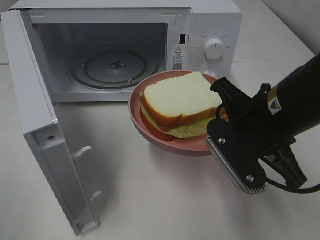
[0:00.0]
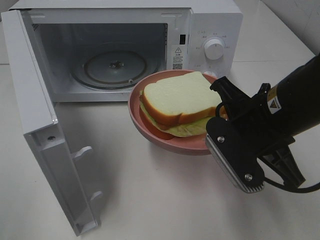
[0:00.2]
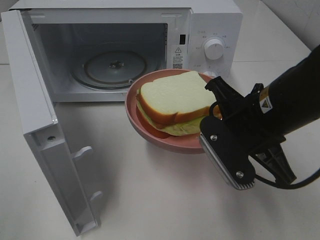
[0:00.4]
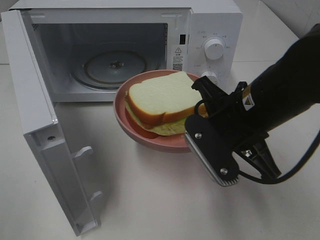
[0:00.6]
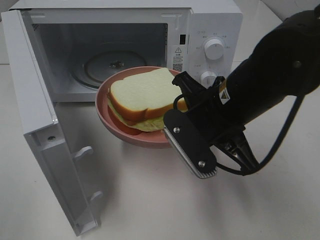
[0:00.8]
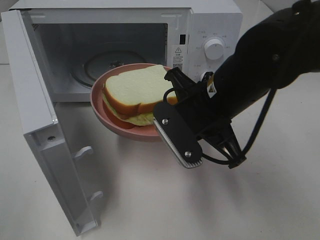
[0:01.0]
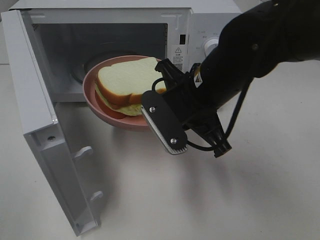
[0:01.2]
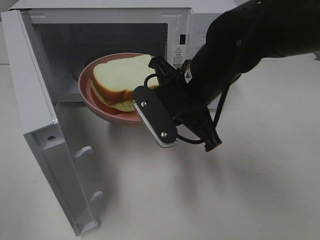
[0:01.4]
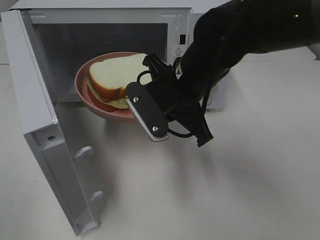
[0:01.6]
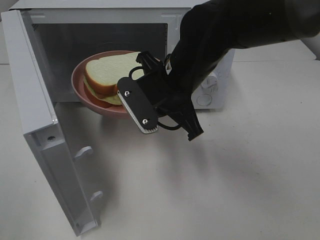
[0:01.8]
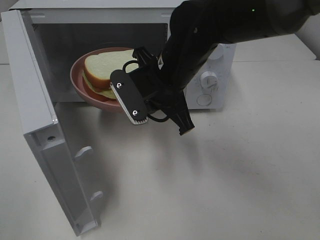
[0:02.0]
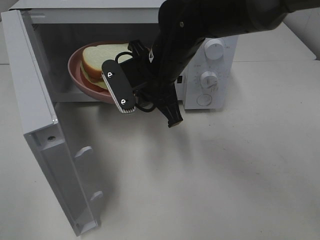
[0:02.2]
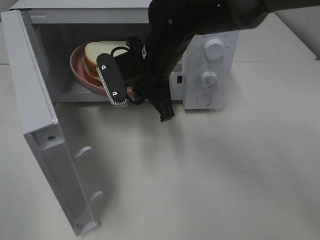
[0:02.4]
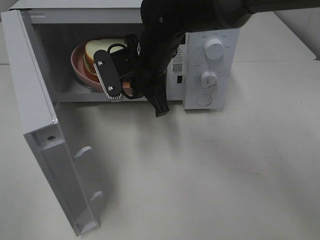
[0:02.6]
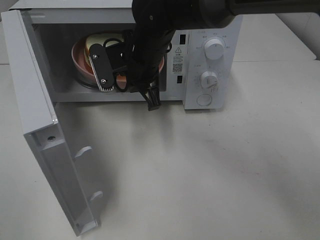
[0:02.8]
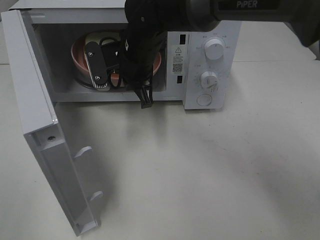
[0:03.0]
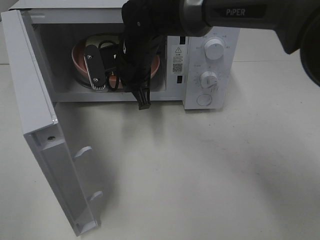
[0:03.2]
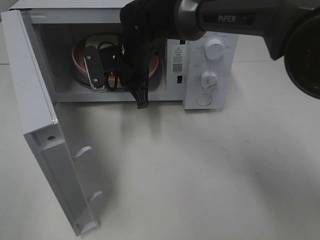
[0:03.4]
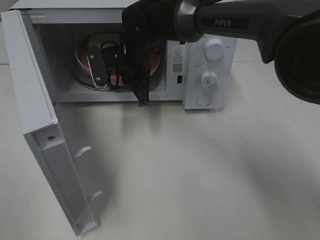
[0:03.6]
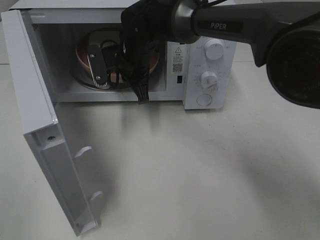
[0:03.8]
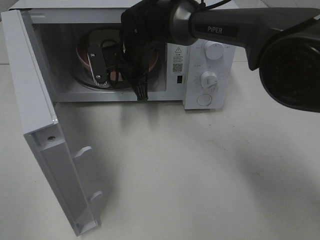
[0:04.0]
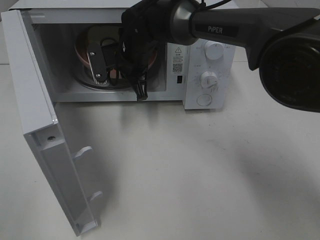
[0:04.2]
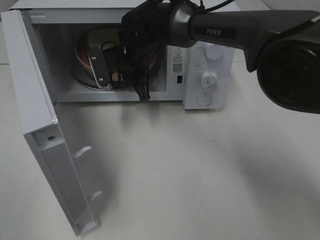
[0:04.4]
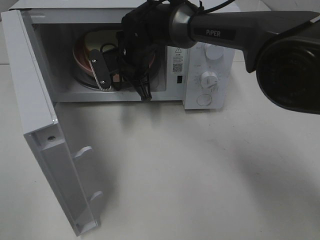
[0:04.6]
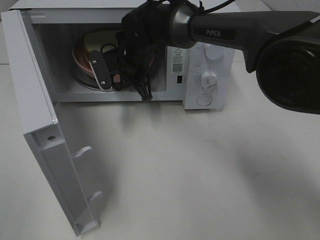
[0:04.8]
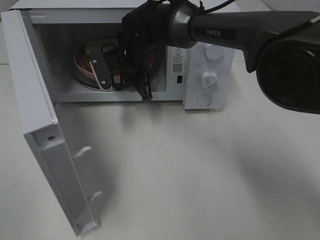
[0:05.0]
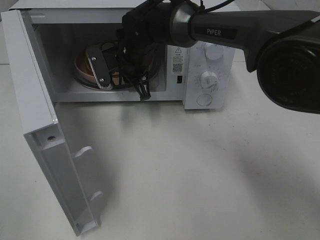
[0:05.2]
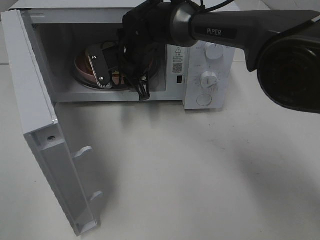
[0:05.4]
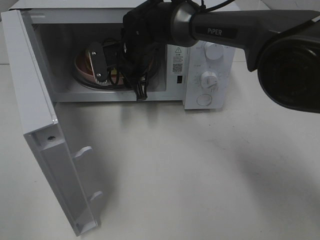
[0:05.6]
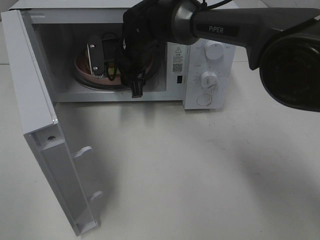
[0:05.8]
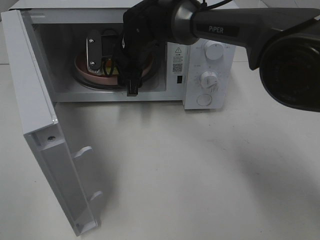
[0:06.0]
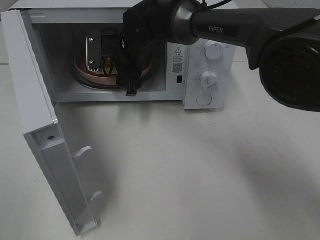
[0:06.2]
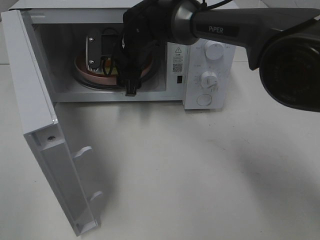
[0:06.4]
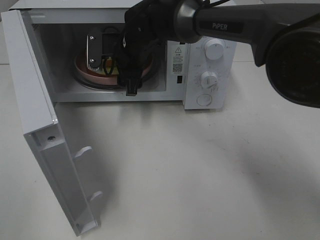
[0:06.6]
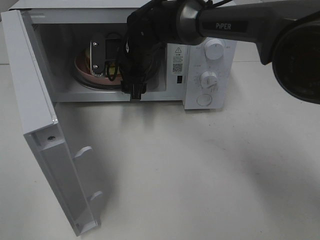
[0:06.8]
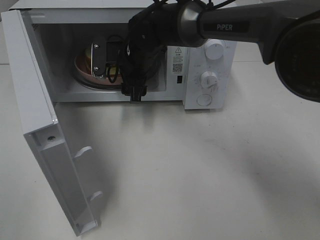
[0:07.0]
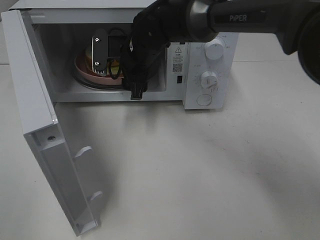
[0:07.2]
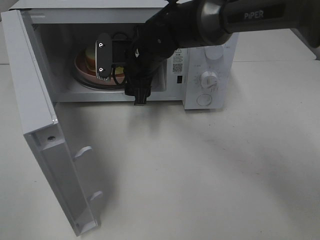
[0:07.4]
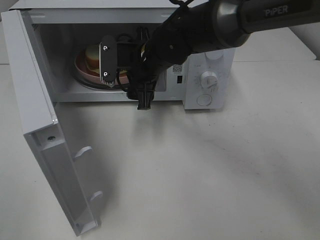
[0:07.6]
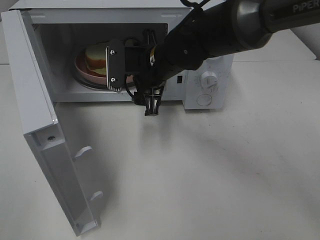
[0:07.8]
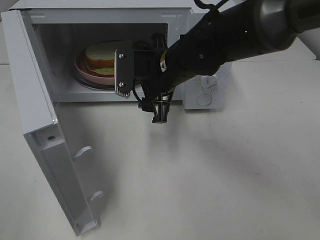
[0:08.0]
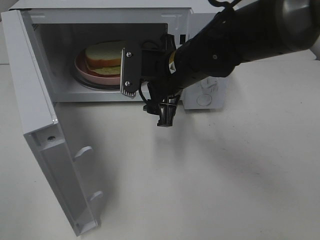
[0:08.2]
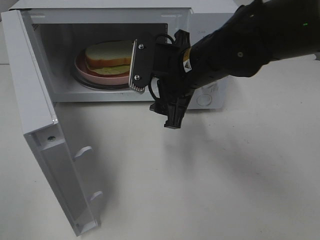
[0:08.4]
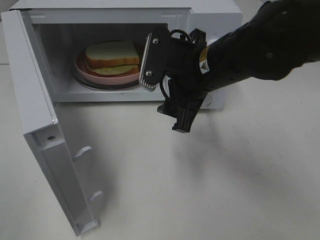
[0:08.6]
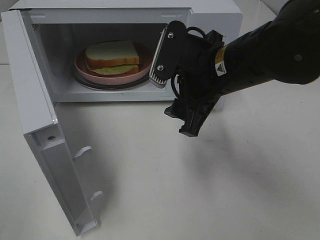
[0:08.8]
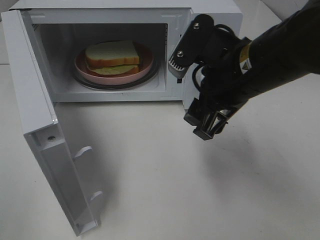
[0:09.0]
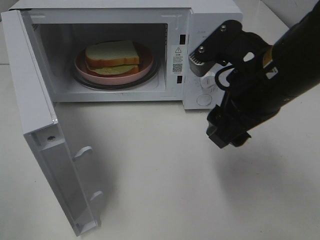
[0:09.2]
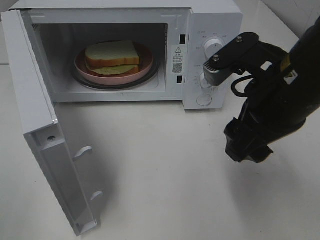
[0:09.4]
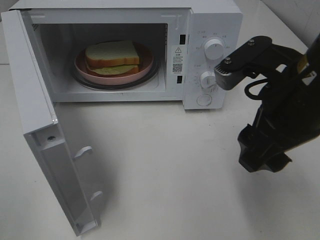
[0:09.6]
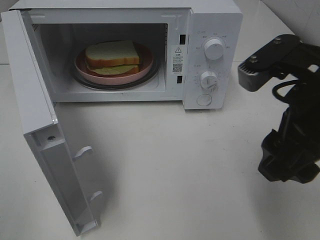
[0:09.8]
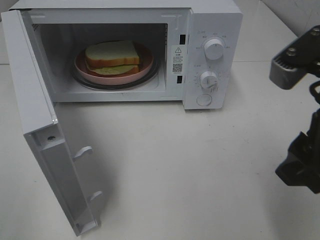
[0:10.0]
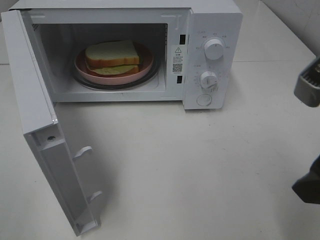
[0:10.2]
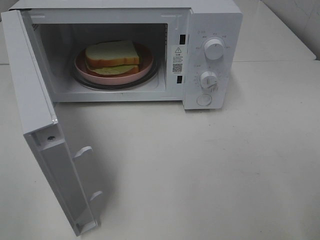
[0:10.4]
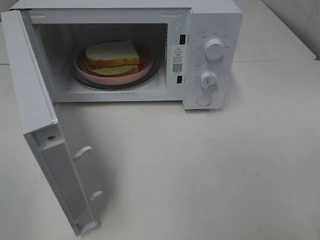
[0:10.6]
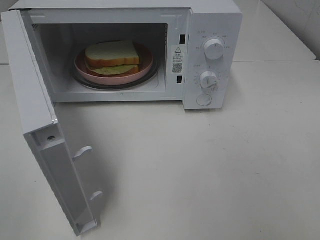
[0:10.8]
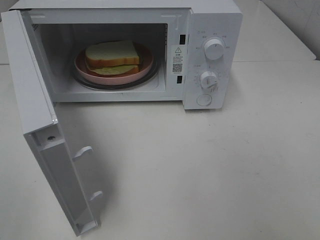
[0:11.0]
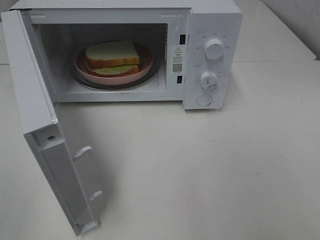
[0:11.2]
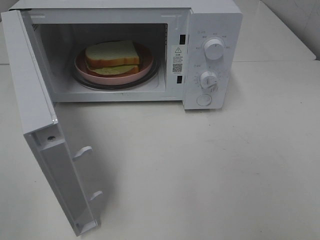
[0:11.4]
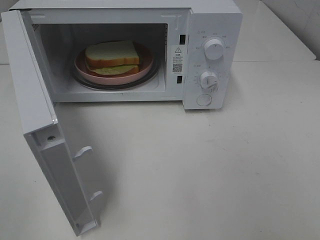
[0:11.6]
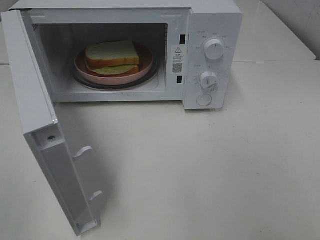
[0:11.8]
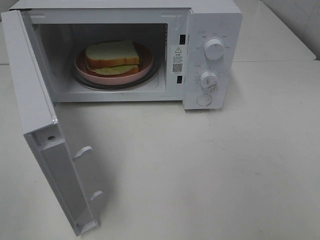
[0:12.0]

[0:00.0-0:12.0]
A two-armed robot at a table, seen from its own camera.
Task of the whole recording: Heat Sandwich.
Step, 0:00.0 to 0:06.6: Right hand: place the plate in the microwave.
0:00.0 to 0:01.6: The right gripper travels to the left and forward by approximately 10 cm.
0:01.6 to 0:03.0: The right gripper moves forward and to the left, roughly 15 cm.
0:03.0 to 0:04.4: The right gripper changes place by approximately 5 cm.
0:04.4 to 0:06.0: The right gripper opens.
0:06.0 to 0:07.6: The right gripper is displaced backward by some 5 cm.
0:07.6 to 0:09.0: The right gripper heads backward, to the right and upward, covering approximately 20 cm.
0:09.0 to 0:10.4: The right gripper travels backward and to the right by about 20 cm.

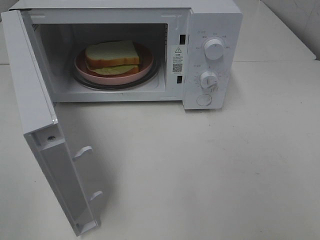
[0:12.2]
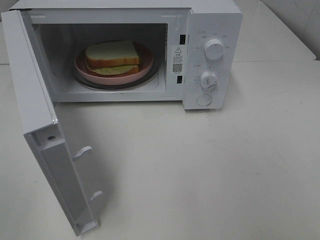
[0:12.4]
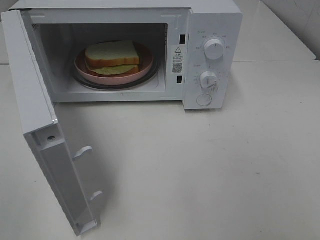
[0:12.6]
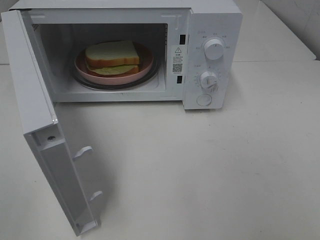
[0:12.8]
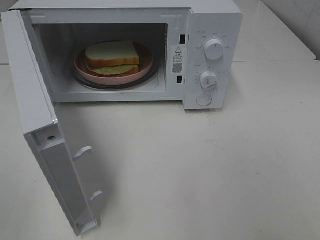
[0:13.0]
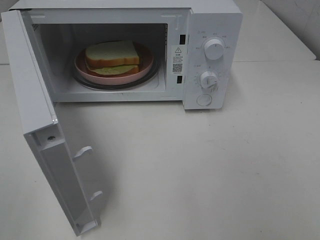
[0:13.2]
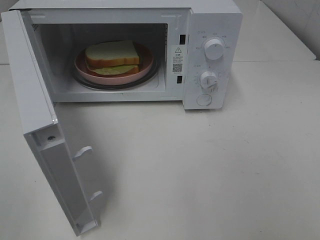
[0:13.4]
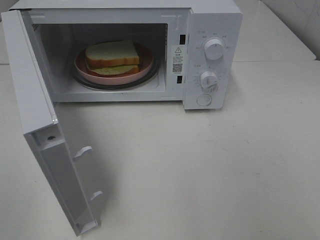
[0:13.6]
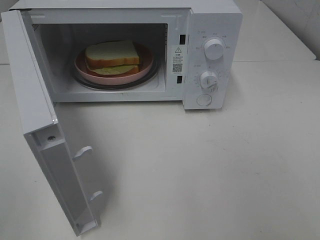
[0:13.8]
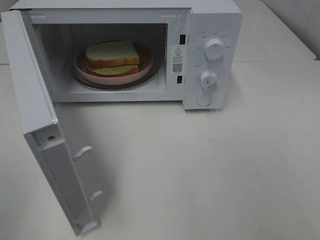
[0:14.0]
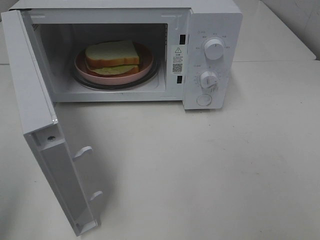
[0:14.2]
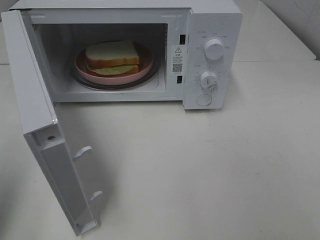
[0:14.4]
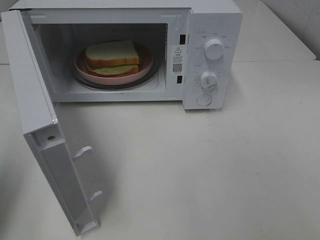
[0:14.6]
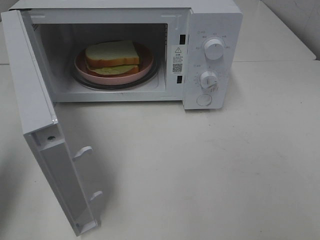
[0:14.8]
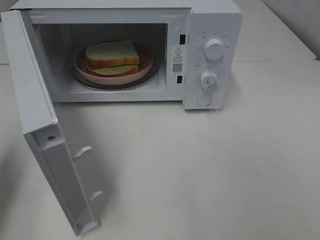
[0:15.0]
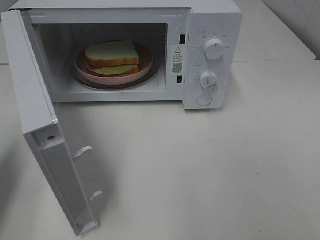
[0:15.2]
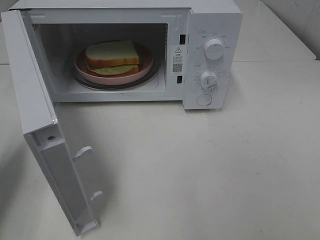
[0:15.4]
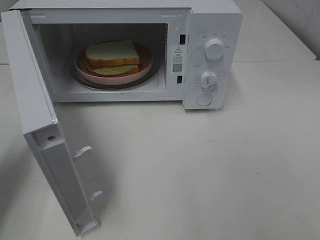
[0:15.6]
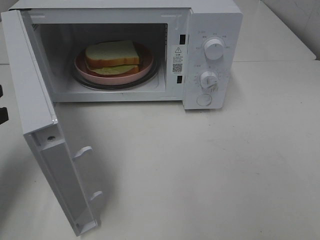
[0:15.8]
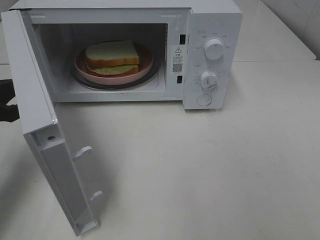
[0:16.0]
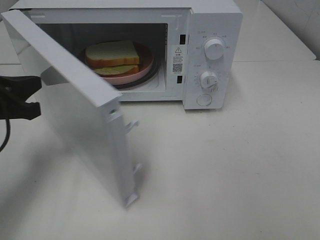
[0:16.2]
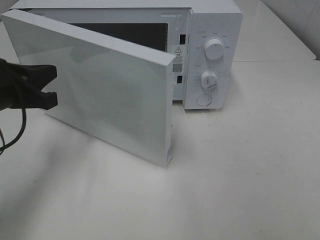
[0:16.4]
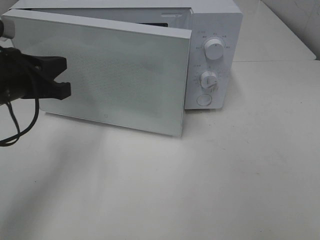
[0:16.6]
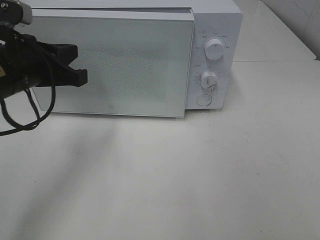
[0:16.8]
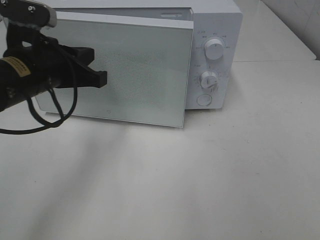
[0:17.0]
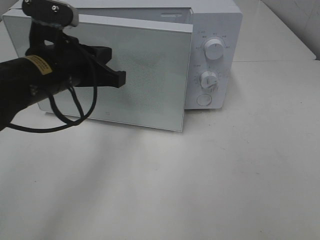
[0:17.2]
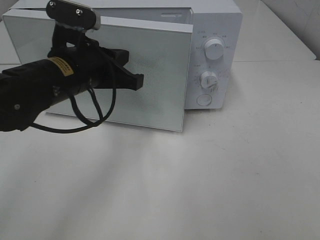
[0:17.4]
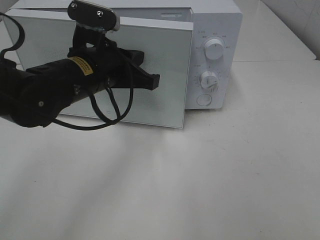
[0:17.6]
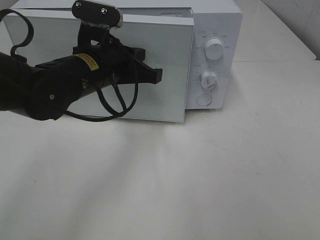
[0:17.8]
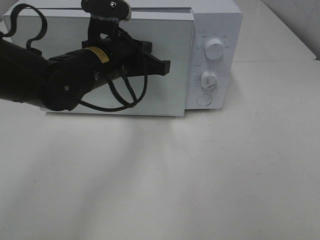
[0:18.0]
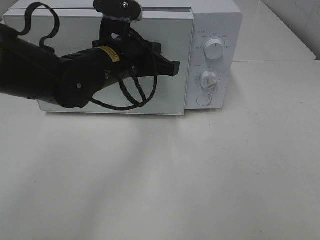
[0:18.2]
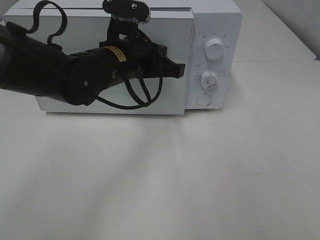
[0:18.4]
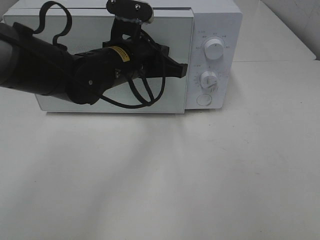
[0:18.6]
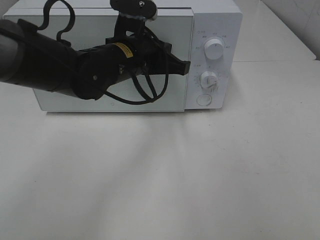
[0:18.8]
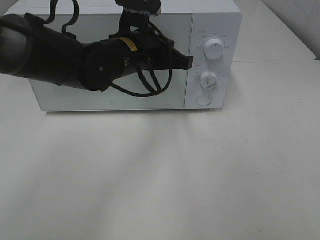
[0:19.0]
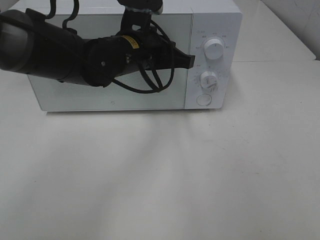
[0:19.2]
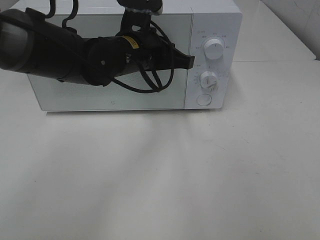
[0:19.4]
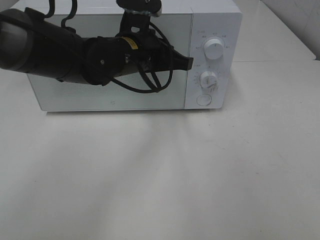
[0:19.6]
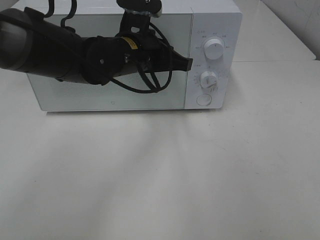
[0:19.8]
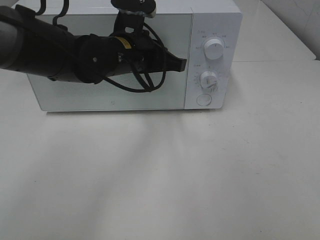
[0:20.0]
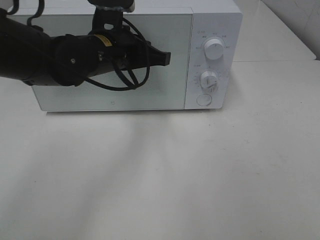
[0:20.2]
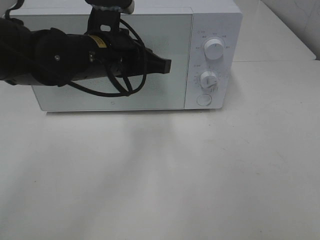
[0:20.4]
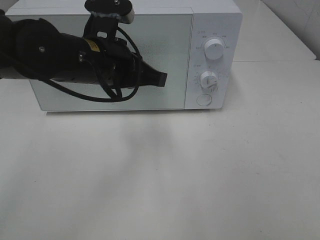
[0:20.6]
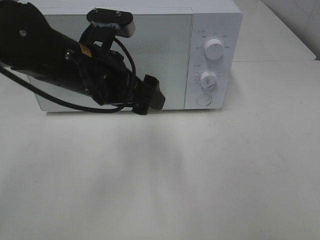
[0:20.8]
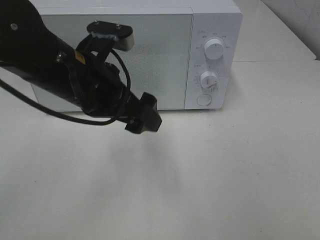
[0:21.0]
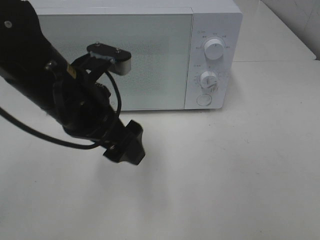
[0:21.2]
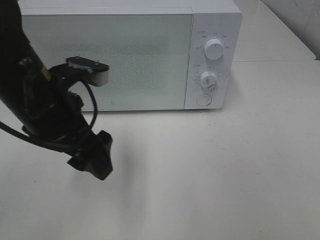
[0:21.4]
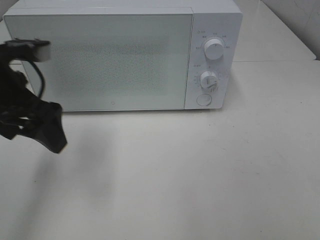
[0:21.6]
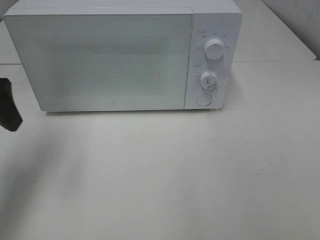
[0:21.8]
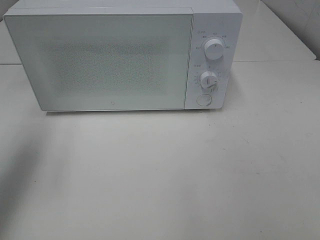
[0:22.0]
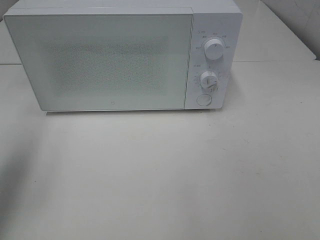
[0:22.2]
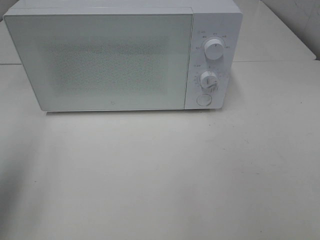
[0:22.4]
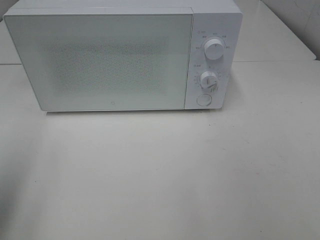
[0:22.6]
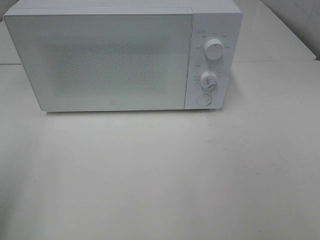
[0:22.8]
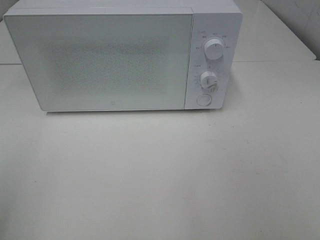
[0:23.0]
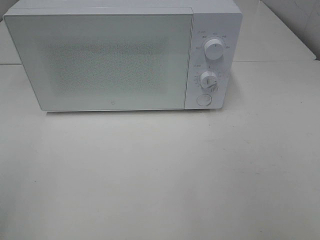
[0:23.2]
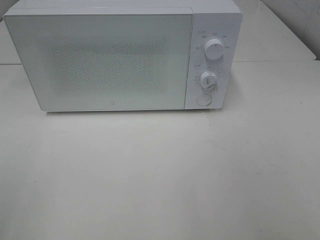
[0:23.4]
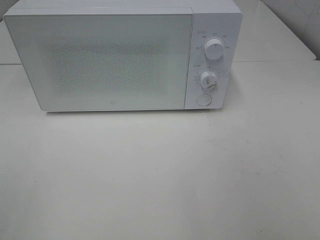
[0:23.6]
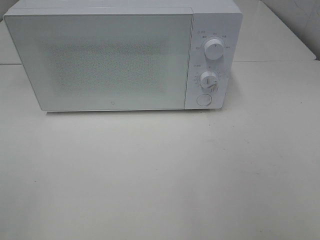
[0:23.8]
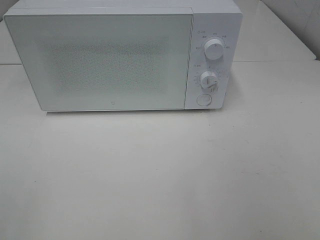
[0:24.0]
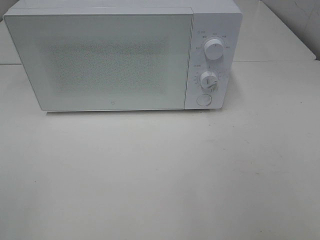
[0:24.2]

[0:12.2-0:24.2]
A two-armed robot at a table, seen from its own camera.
Task of the whole recording: Heat Sandwich.
Step, 0:12.2 to 0:21.0: Left hand: close the microwave door.
0:13.8 to 0:15.2: The left gripper goes some 20 cm forward and downward, and closes.
0:15.2 to 0:16.6: The left gripper is displaced to the right and forward by roughly 15 cm.
0:16.6 to 0:18.2: The left gripper travels to the right and forward by approximately 15 cm.
0:18.2 to 0:19.8: The grippers move only a little.
0:19.8 to 0:21.2: The left gripper goes about 15 cm backward and to the left, and opens up.
0:21.2 to 0:22.6: The left gripper moves to the left and backward, some 25 cm.
0:22.6 to 0:24.2: The left gripper travels backward by some 15 cm.
